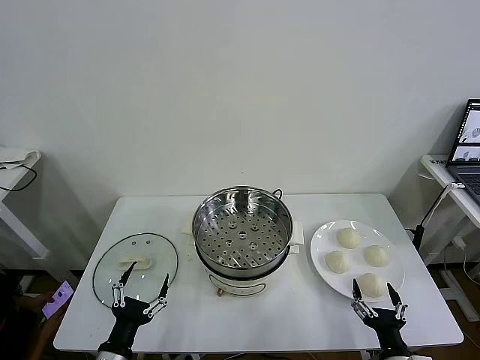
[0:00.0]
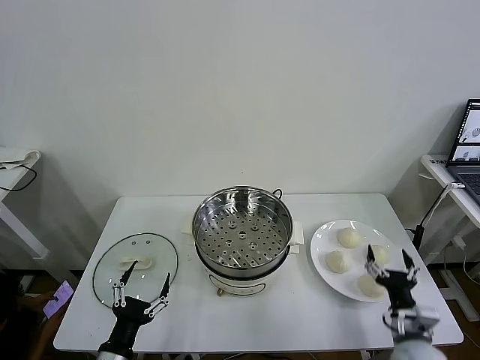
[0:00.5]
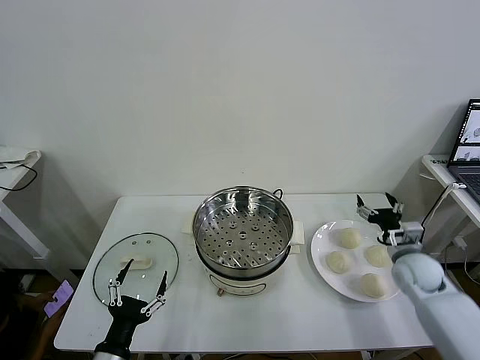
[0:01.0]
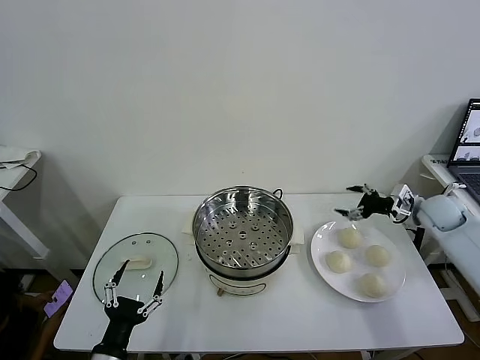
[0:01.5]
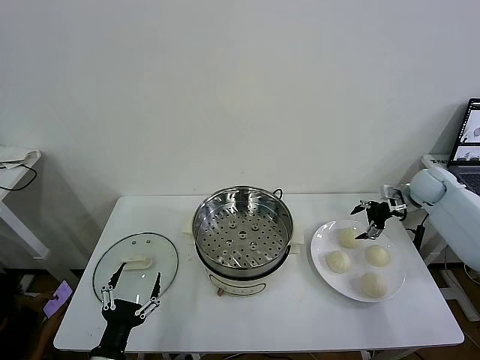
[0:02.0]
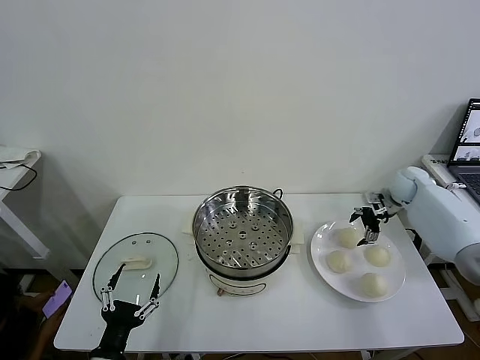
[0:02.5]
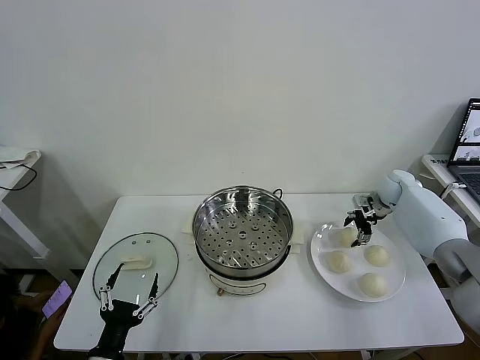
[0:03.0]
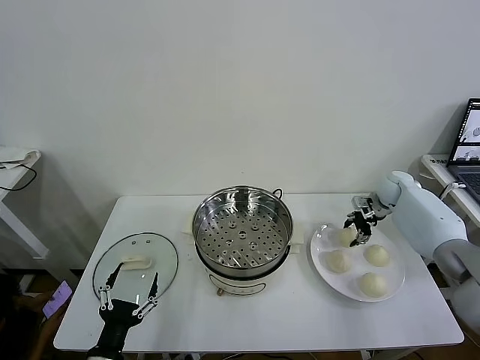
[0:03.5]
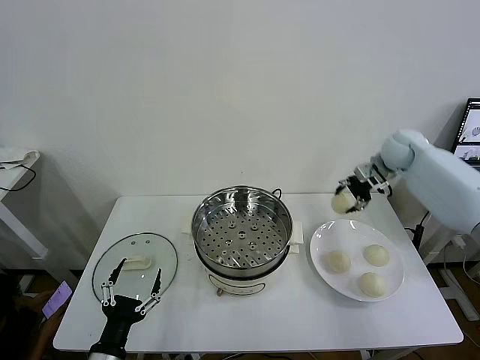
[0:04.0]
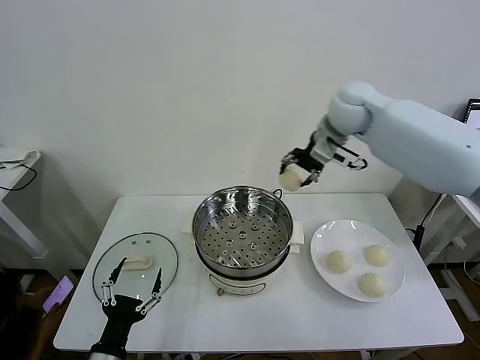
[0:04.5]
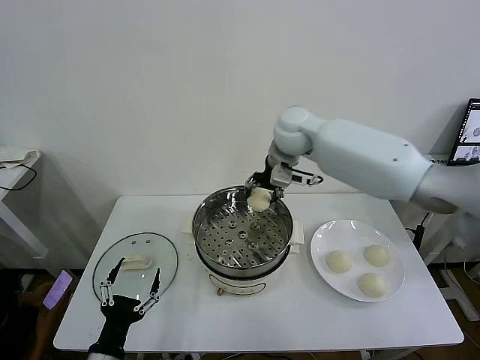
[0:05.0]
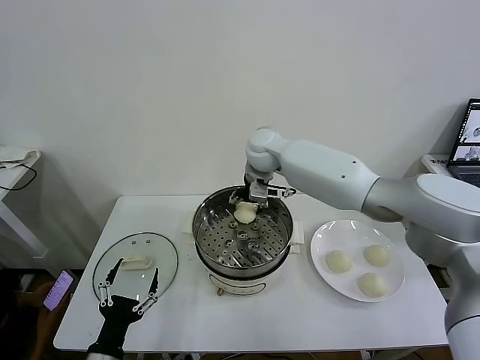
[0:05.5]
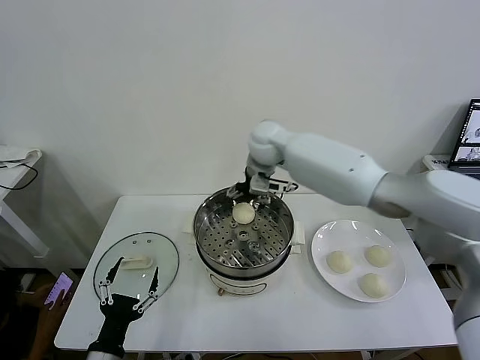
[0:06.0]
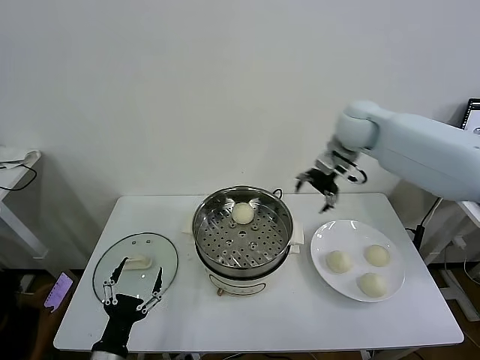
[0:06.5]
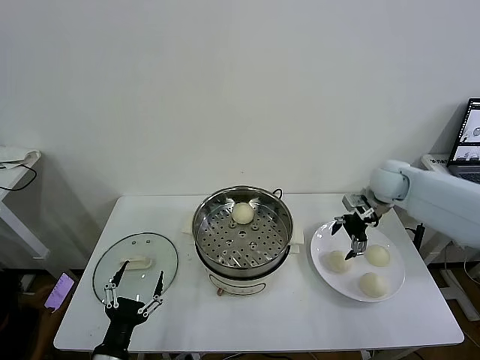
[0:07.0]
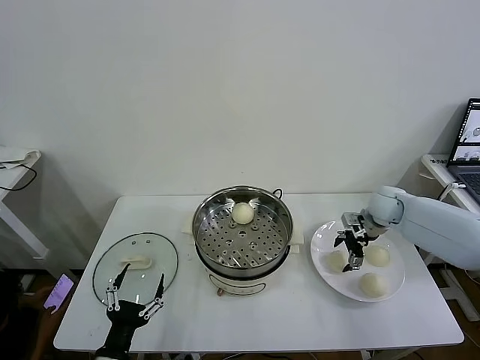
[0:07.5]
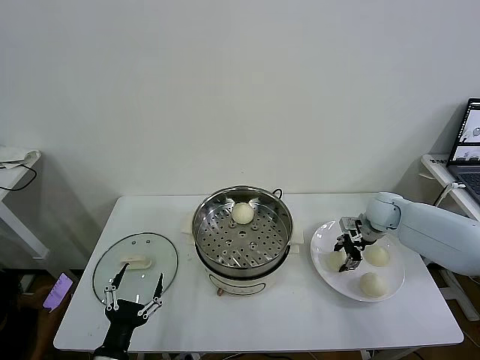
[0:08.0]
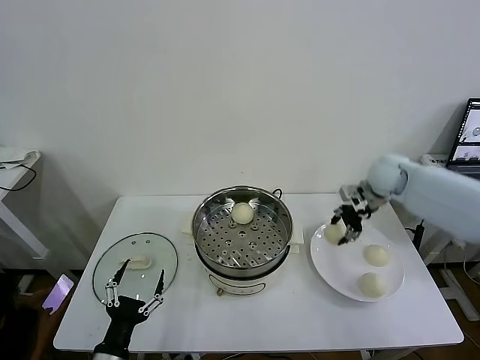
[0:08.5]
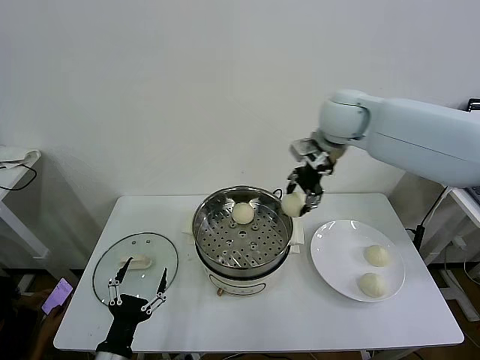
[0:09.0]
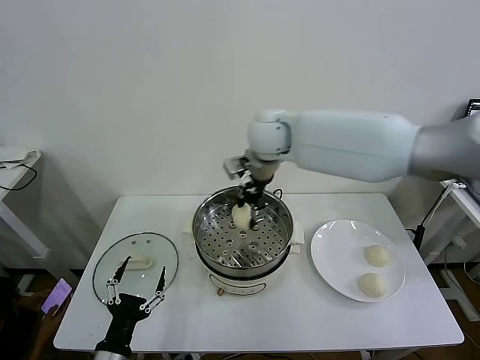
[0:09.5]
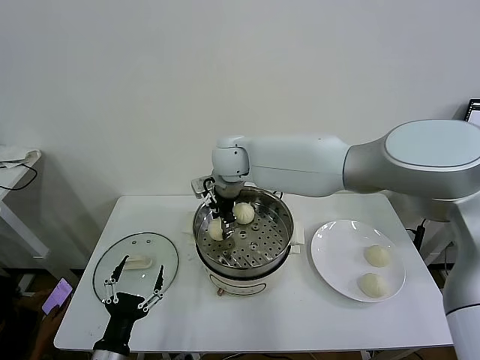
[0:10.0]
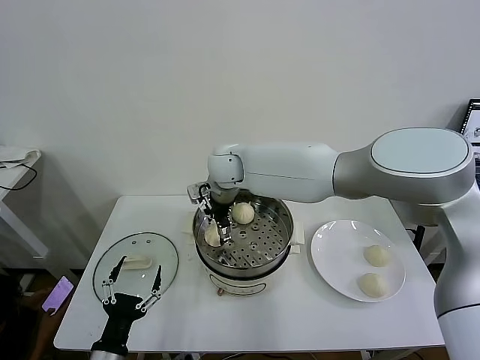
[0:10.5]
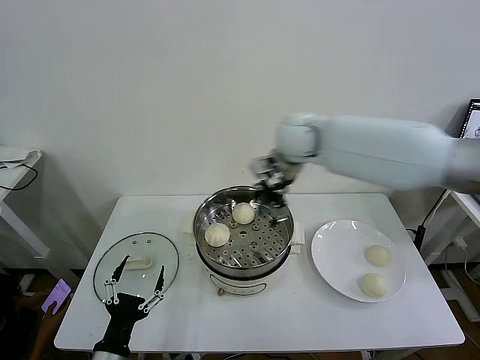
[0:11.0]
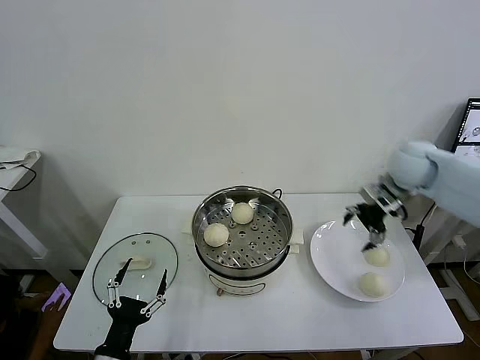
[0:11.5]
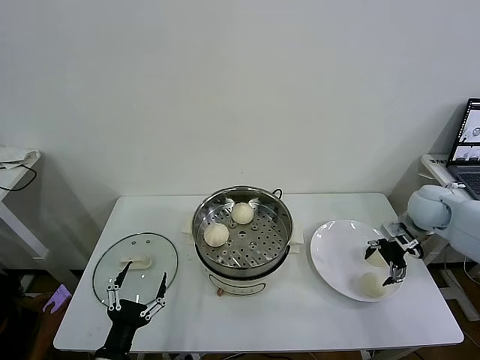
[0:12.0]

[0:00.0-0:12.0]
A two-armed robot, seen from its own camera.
Task of the whole recording: take steamed baozi put them in steamer then cover it.
Step, 0:00.0 to 0:03.0: Grasp the baozi in the plate with right gripper.
Step, 0:03.5 to 0:05.5: Place the baozi on the steamer with right gripper.
Step, 0:06.0 to 0:08.0: Grasp the baozi in the plate with right gripper.
Step, 0:08.5 to 0:10.5: Place the baozi on the steamer with right gripper.
0:02.0 to 0:04.0: The right gripper heads upward and to the left, covering approximately 15 cm, and closes up.
0:04.0 to 0:06.0: The right gripper is displaced to the left by approximately 30 cm, and opens.
0:06.0 to 0:08.0: The right gripper heads to the right and downward, covering about 35 cm, and closes.
0:08.0 to 0:10.0: The right gripper is displaced to the left by some 40 cm.
0:10.0 to 0:12.0: The right gripper goes about 50 cm to the right, and opens up.

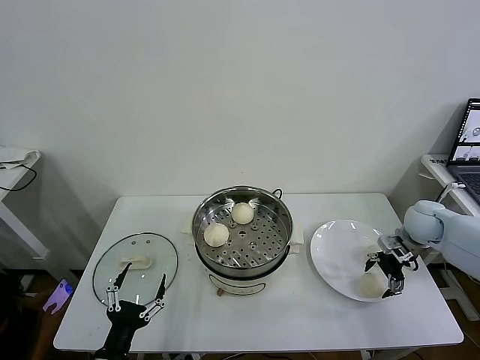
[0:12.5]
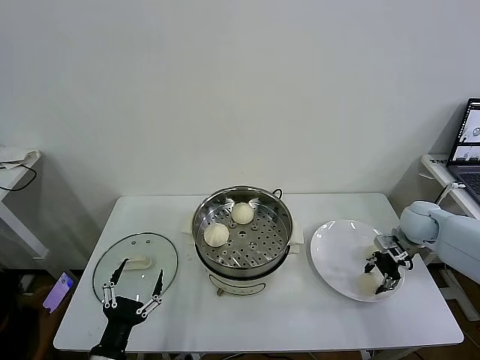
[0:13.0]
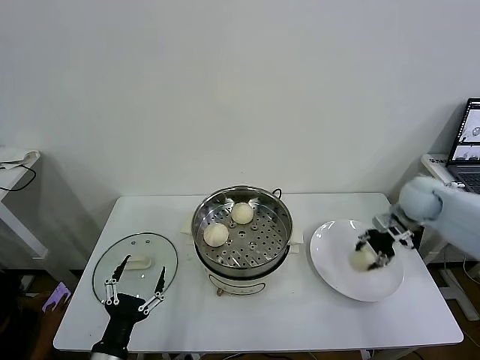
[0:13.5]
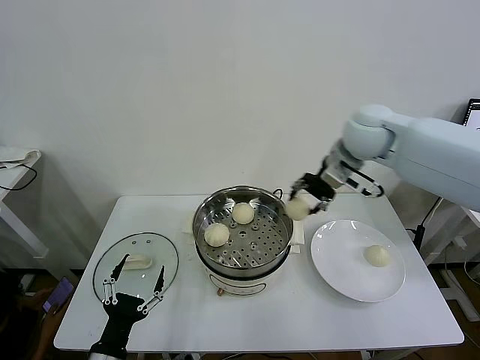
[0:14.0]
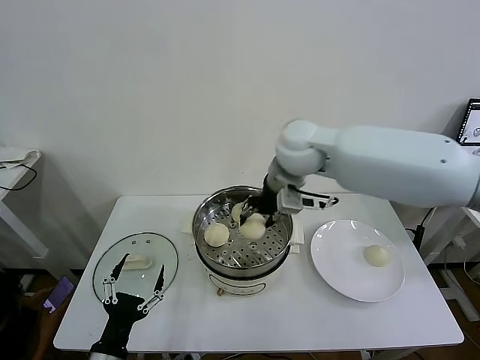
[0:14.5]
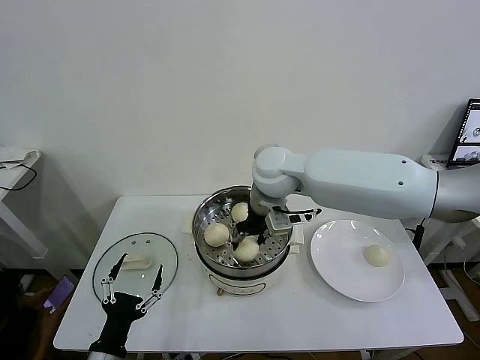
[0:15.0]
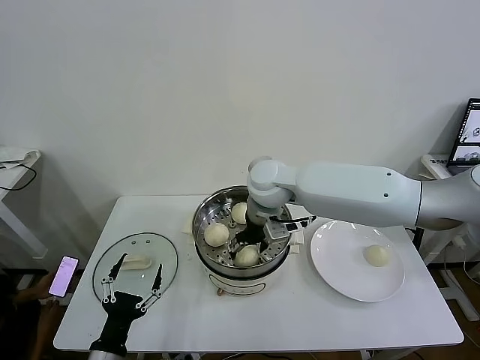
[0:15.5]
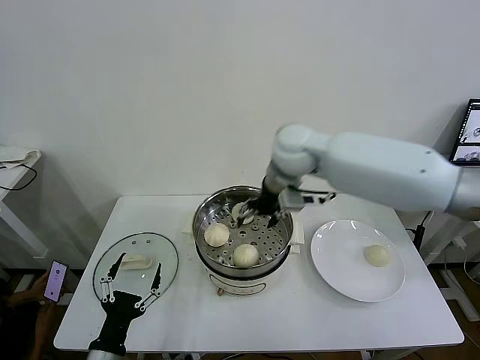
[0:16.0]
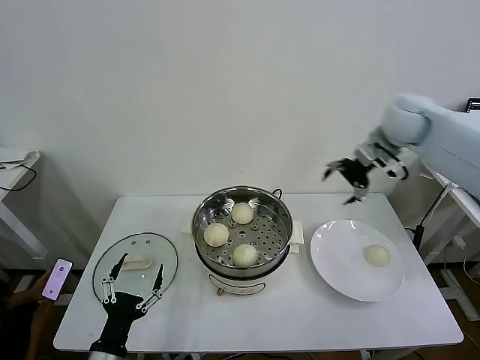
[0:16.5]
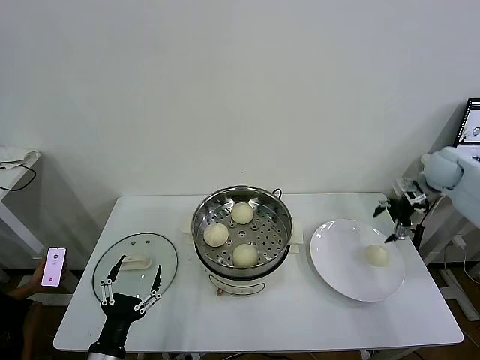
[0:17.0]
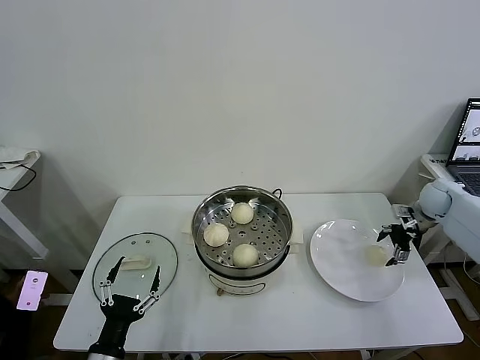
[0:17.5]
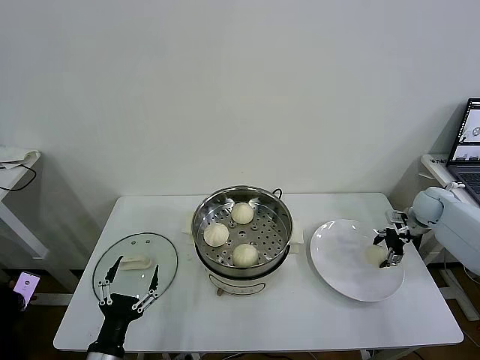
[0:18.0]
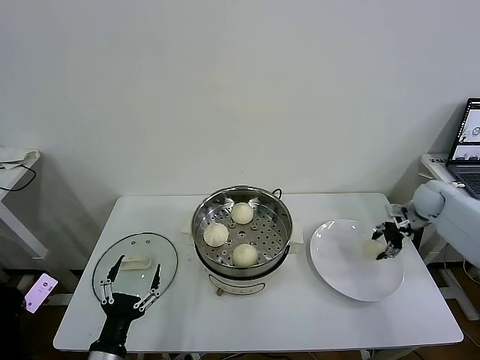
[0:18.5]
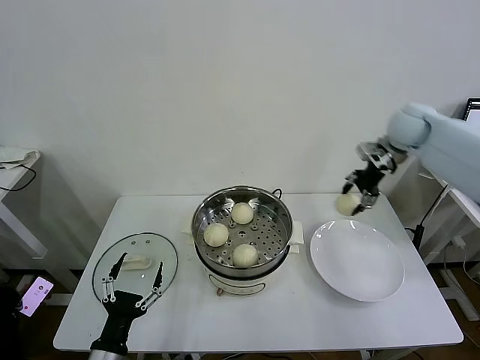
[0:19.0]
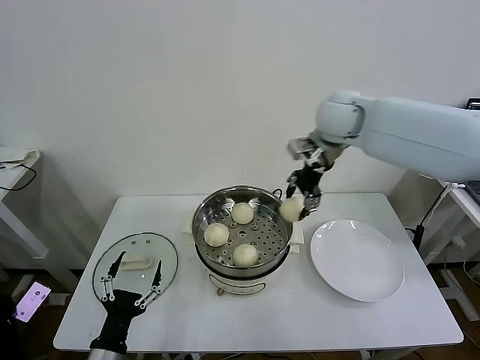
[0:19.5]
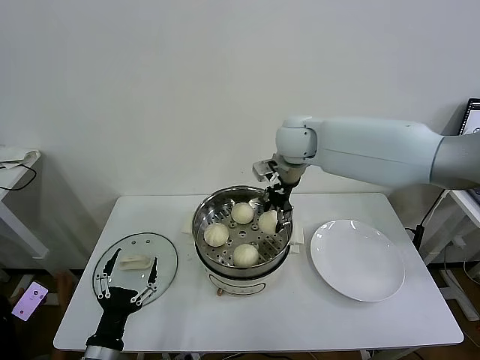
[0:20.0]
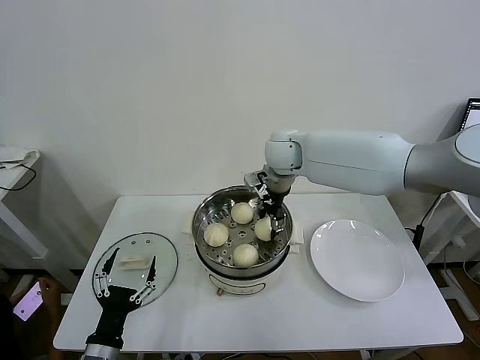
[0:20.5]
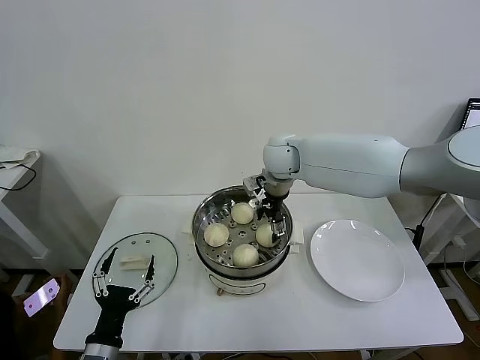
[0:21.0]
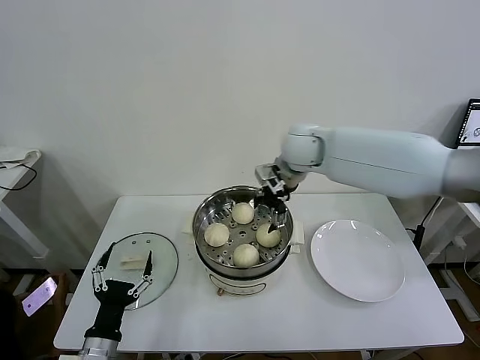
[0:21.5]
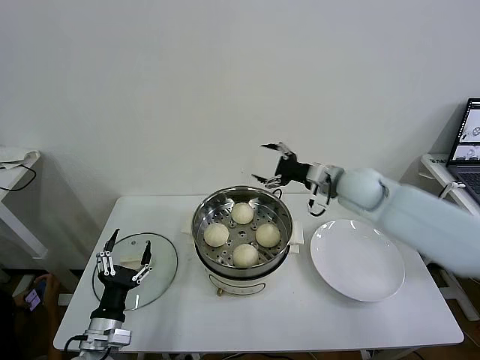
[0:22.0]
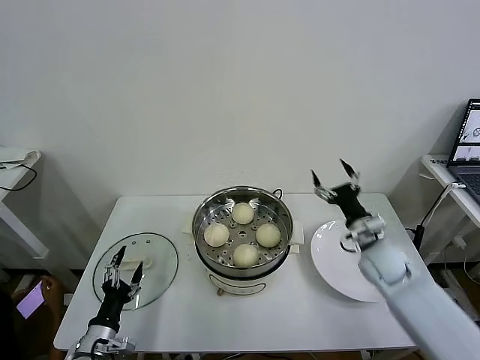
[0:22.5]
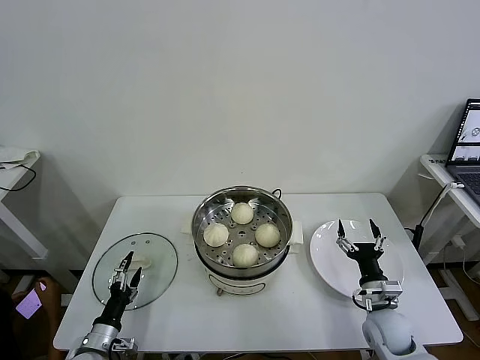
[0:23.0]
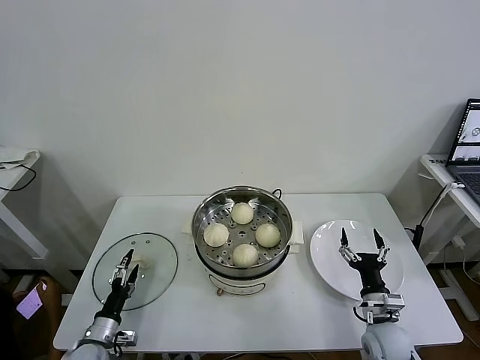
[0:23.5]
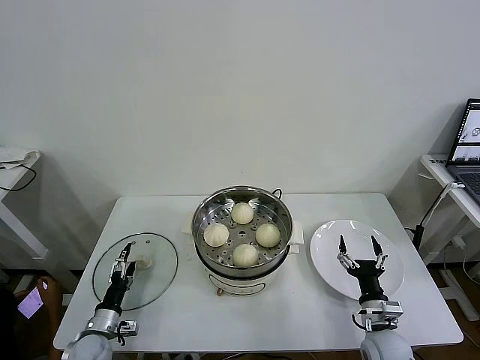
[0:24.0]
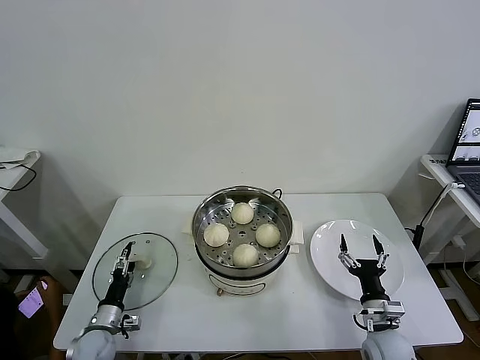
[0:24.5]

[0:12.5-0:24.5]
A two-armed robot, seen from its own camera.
Task of the whole recording: take steamed baozi put them in steamer then cover it.
Step, 0:13.5 to 0:15.5: Place the baozi on the steamer with right gripper.
Step, 0:16.0 to 0:18.0: Grasp the baozi in the plate with right gripper.
Step, 0:18.5 to 0:21.0: Place the baozi on the steamer with right gripper.
0:12.5 to 0:14.5: The right gripper travels to the left and upward by roughly 40 cm, and closes its fingers.
0:14.5 to 0:16.5: The right gripper heads to the right, covering about 25 cm, and opens up.
0:16.5 to 0:18.5: The right gripper heads downward and to the right, covering approximately 25 cm, and closes up.
0:18.5 to 0:20.5: The right gripper goes roughly 40 cm to the left.
0:20.5 to 0:22.5: The right gripper moves to the right, downward and backward, roughly 35 cm, and opens its fingers. Meanwhile the left gripper shifts some 10 cm downward and forward.
0:22.5 to 0:24.5: The right gripper travels backward and downward by roughly 20 cm. The left gripper moves downward and forward, roughly 10 cm.

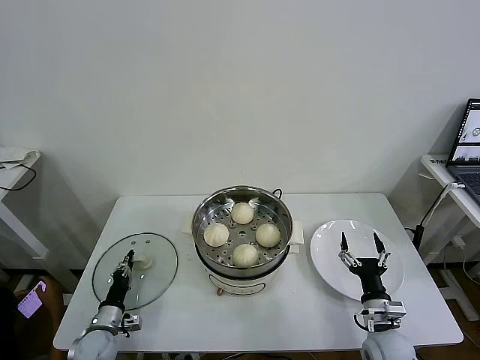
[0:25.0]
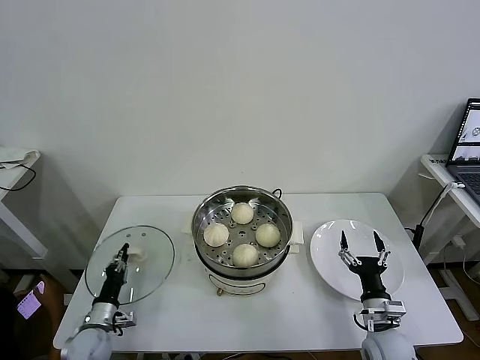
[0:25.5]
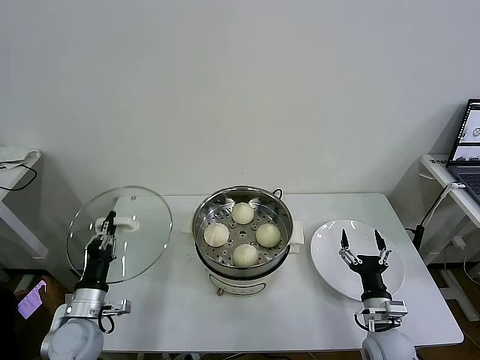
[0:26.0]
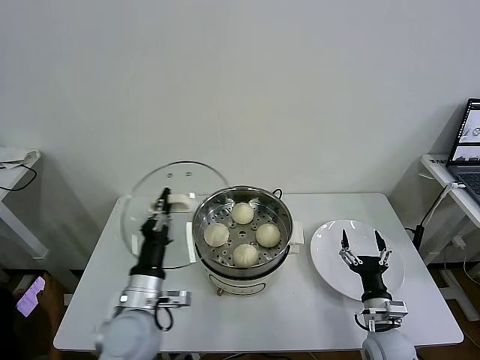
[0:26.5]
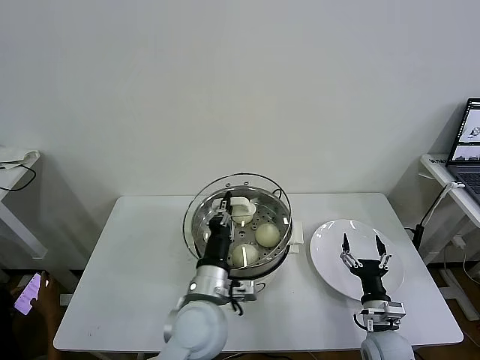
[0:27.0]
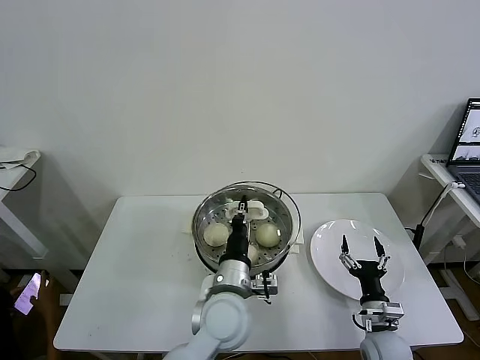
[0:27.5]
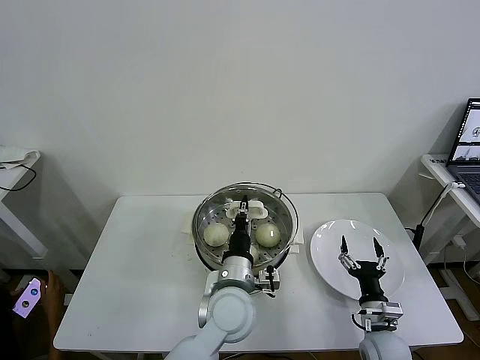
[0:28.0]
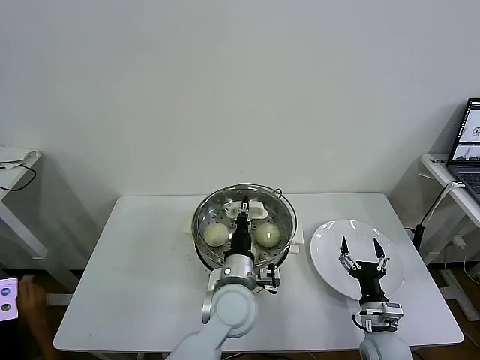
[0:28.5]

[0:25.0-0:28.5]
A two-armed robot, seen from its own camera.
Task of the whole recording: take steamed baozi put them in steamer then cover it.
0:25.0 to 0:27.0: The left gripper is displaced to the right and upward by about 35 cm.
0:27.0 to 0:28.5: The left gripper heads to the right, covering roughly 5 cm.
